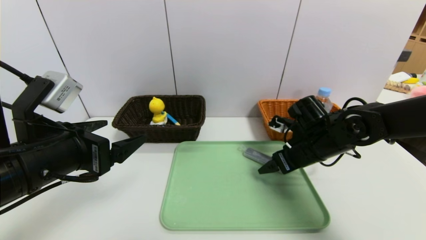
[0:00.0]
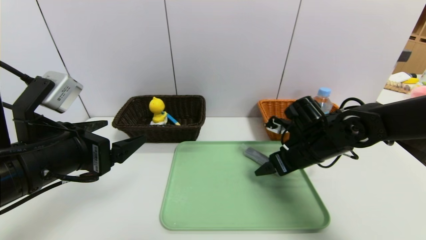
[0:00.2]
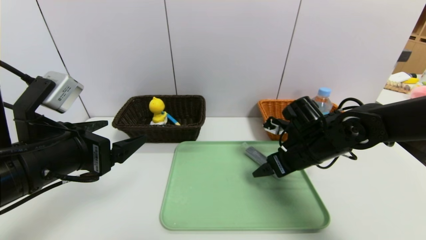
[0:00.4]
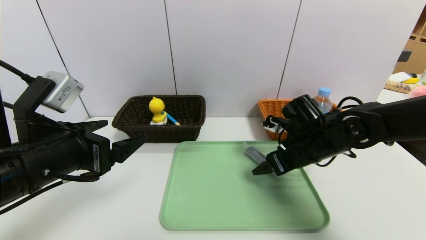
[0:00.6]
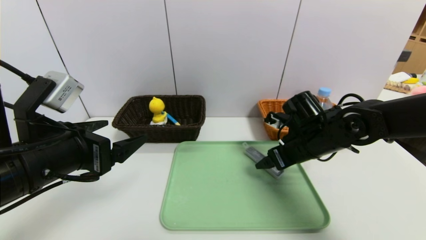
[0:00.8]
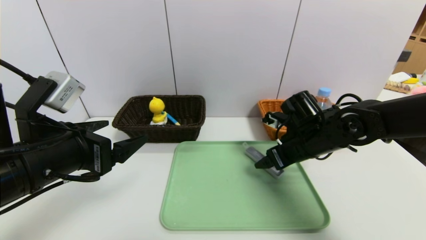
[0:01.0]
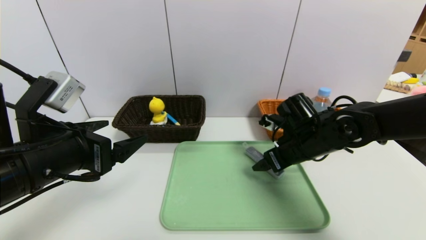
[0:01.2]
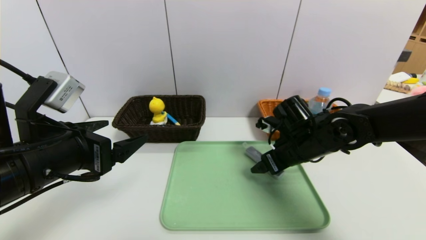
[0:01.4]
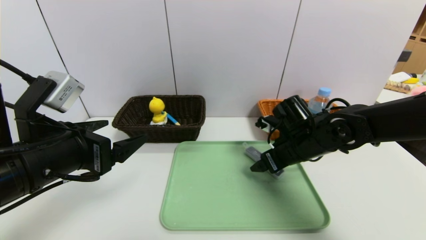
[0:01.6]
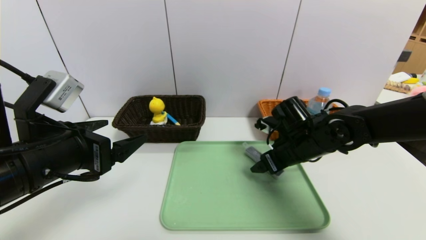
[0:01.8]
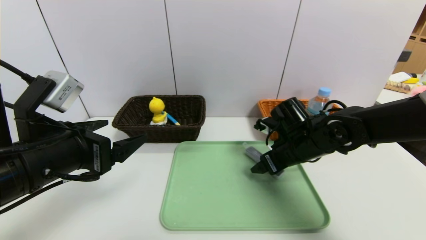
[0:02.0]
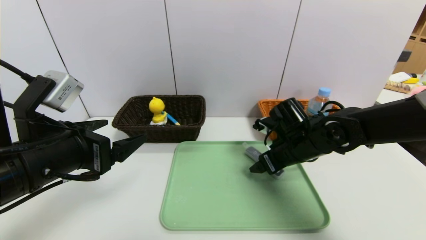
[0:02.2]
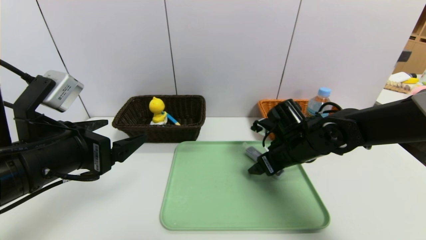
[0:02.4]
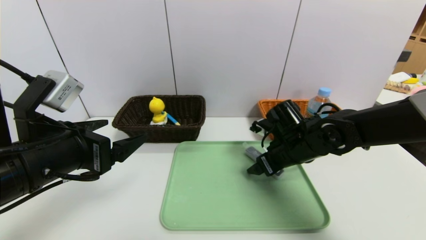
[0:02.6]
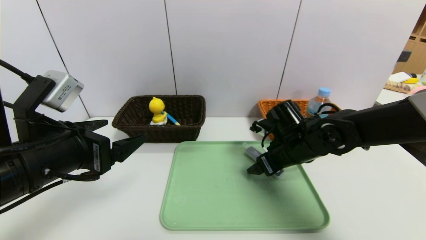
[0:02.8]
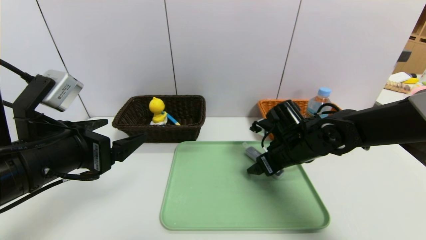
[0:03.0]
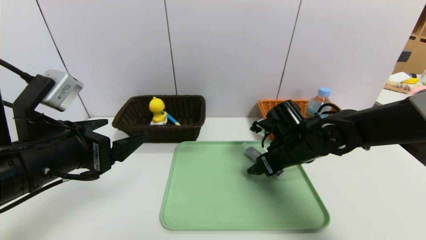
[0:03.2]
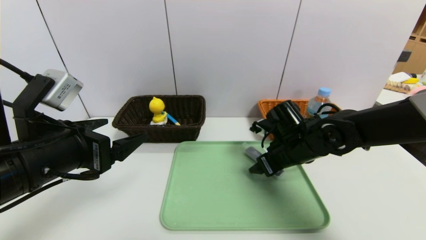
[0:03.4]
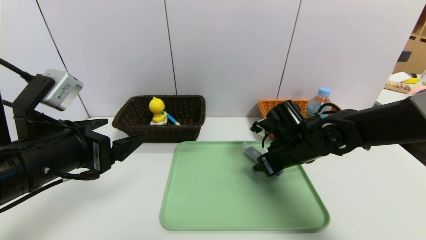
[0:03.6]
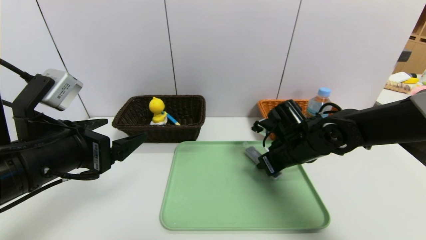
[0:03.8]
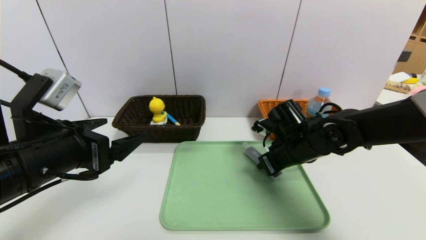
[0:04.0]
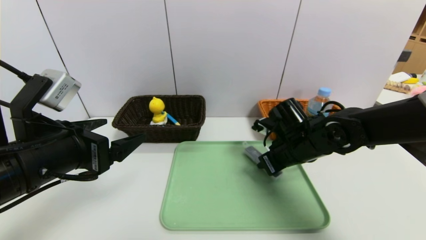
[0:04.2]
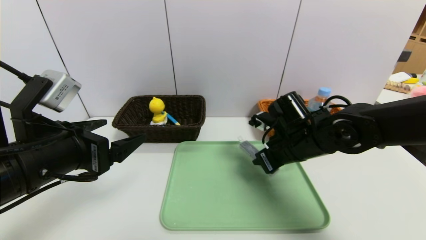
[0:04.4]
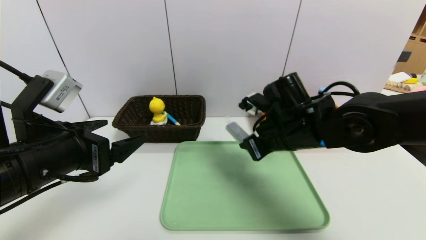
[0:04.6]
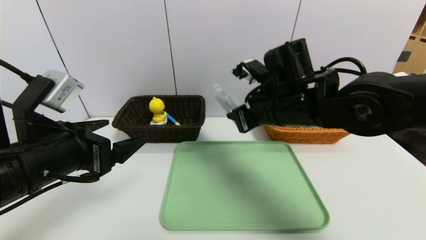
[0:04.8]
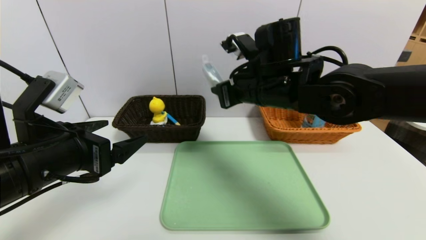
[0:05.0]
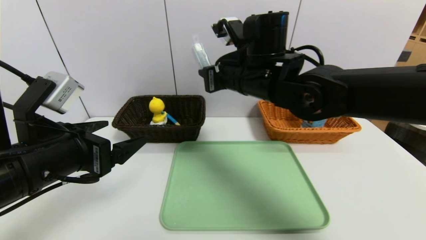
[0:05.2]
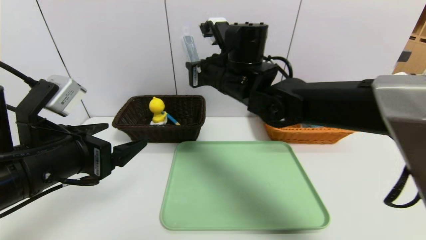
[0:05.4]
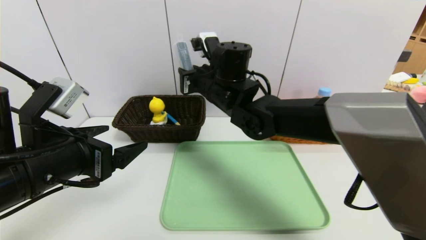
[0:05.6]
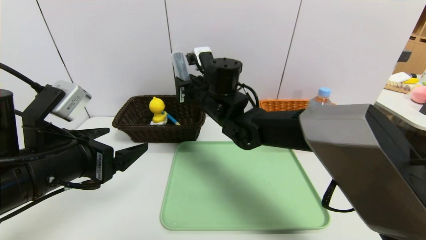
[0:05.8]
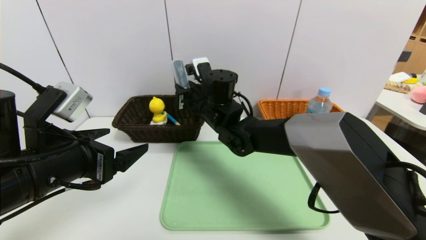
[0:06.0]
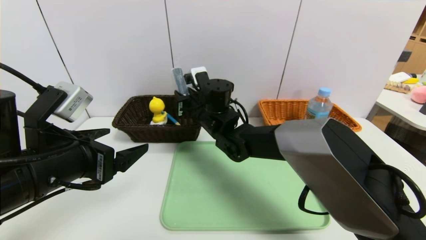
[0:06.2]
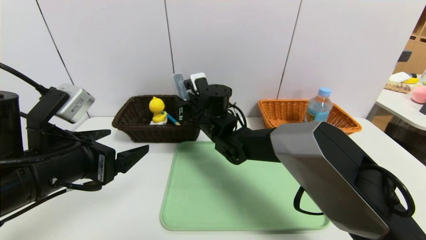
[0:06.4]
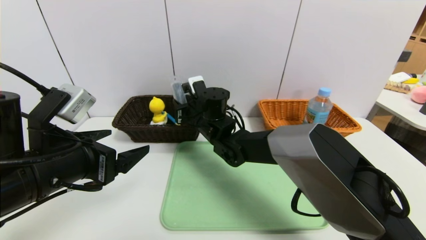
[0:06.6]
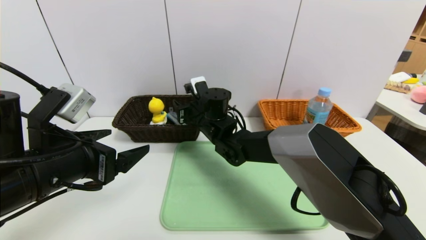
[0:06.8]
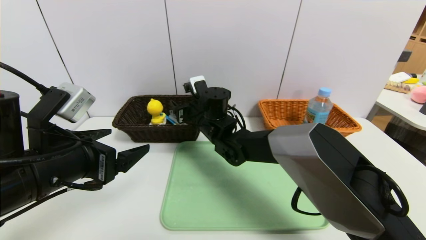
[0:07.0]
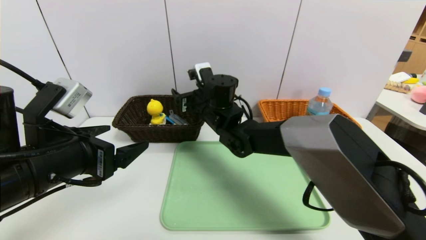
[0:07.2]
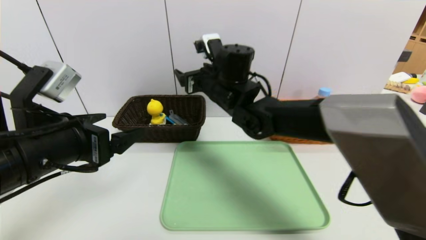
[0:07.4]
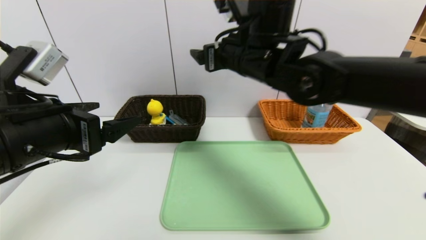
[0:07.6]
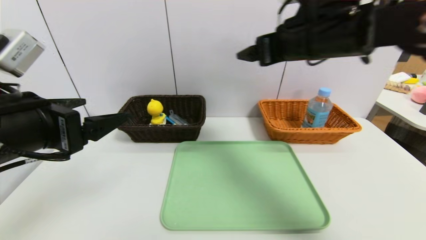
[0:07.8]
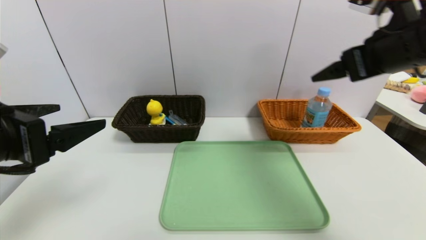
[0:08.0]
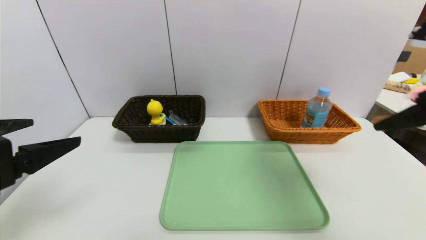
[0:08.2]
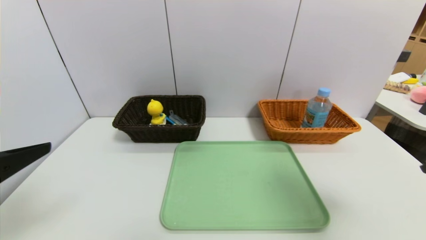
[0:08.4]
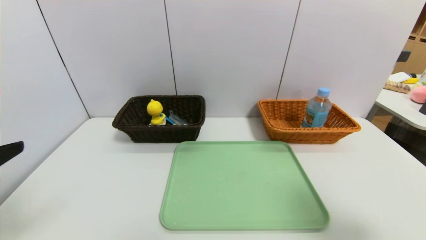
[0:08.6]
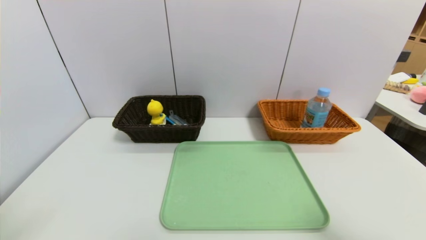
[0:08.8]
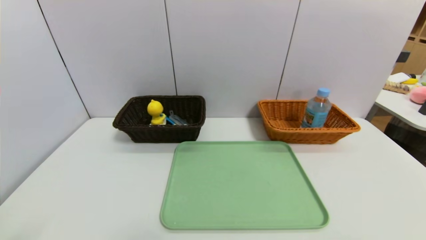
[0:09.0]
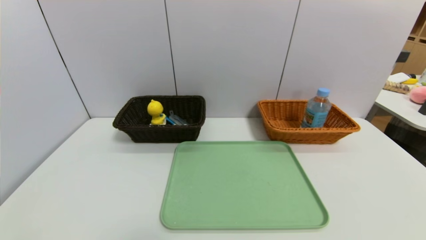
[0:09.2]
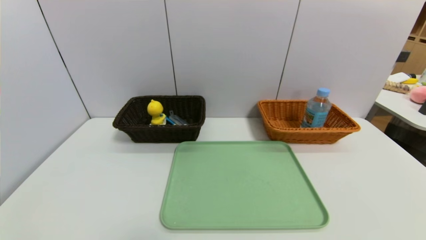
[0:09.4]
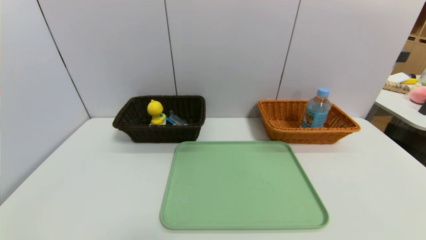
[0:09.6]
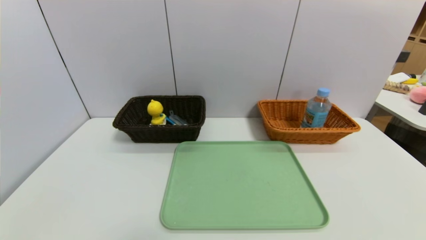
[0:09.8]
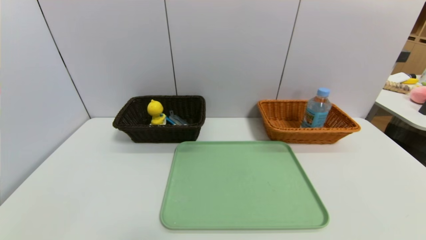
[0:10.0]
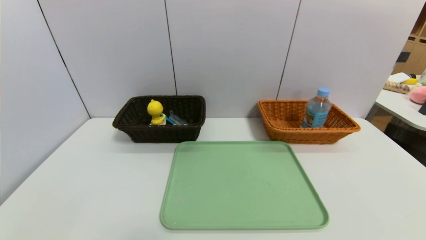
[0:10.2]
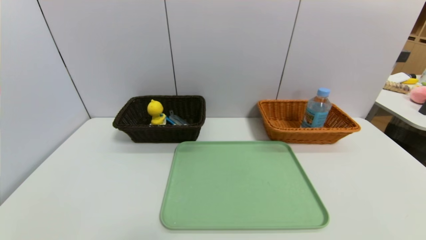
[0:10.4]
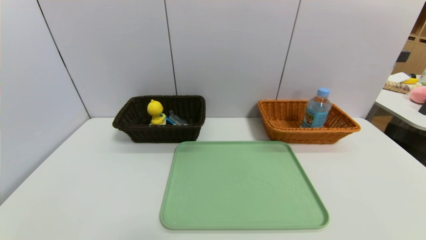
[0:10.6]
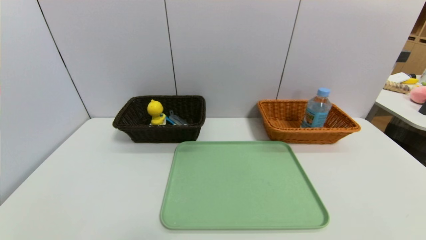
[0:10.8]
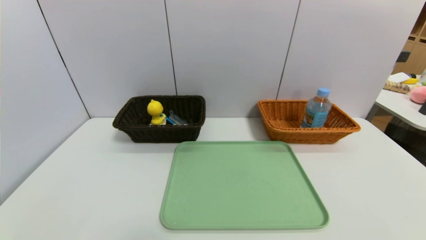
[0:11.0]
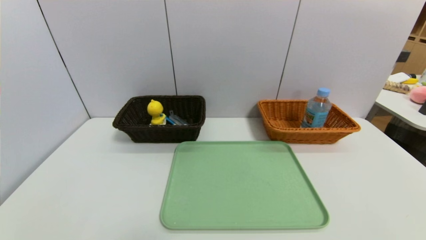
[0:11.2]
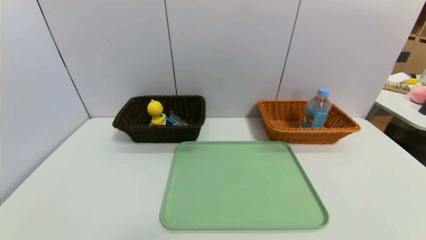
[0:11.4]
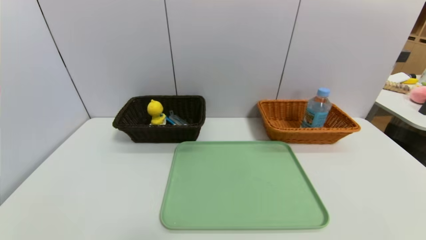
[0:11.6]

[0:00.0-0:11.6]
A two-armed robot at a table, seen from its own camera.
Task of the whole recording: place the food in the right basket with the right gripper, and place the non food items in the left basket with the left gripper.
0:00.0 to 0:02.8: There are only small adjustments of the grippers.
0:02.8 to 0:04.4: The right gripper closes.
0:04.4 to 0:05.8: The right gripper goes roughly 20 cm to the left and forward.
0:05.8 to 0:07.2: The right gripper opens up.
0:07.2 to 0:08.8: The right gripper moves backward and to the right, some 50 cm. The left gripper shifts some 15 cm backward and to the left.
0:08.8 to 0:10.2: Both grippers travel together downward, roughly 20 cm.

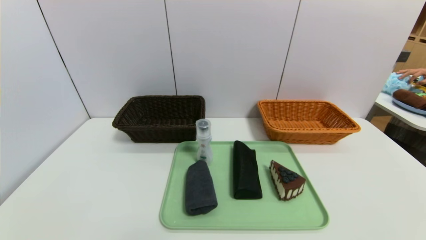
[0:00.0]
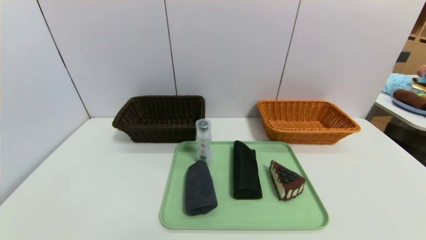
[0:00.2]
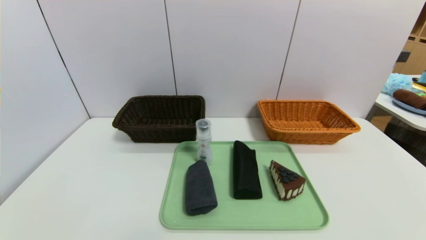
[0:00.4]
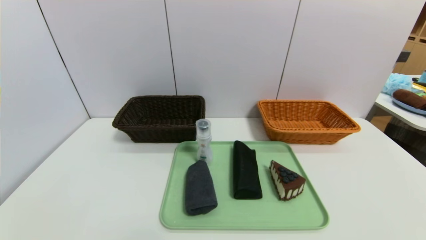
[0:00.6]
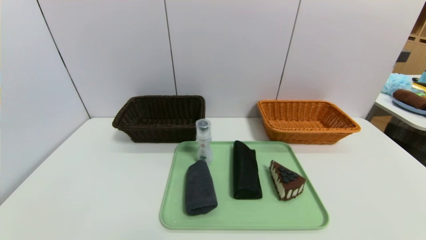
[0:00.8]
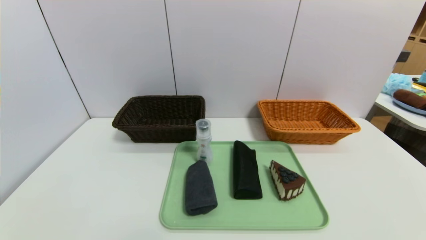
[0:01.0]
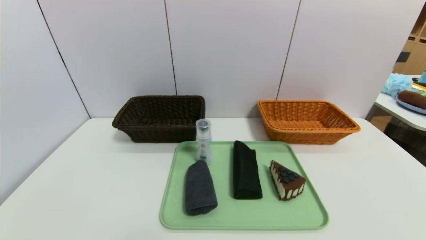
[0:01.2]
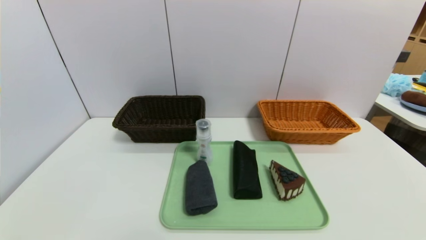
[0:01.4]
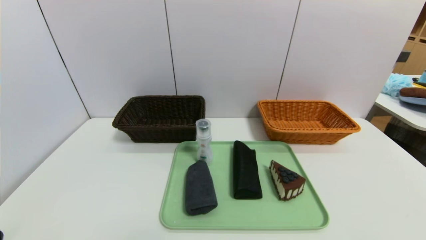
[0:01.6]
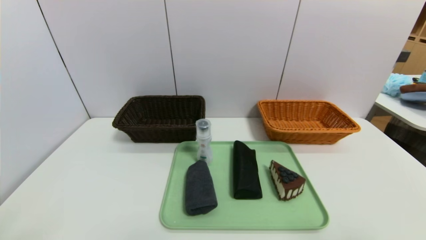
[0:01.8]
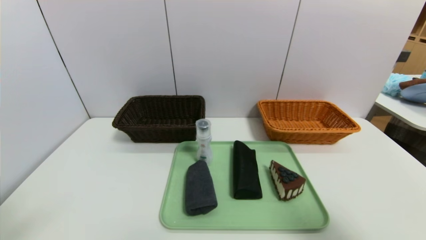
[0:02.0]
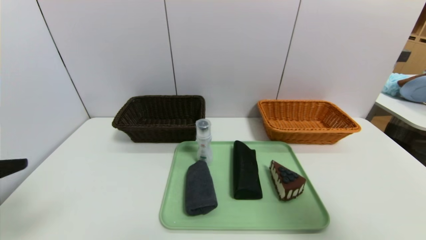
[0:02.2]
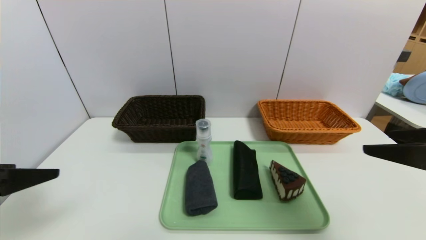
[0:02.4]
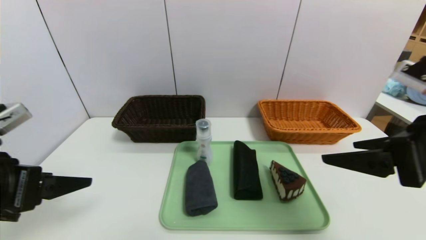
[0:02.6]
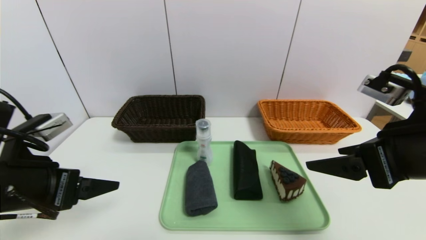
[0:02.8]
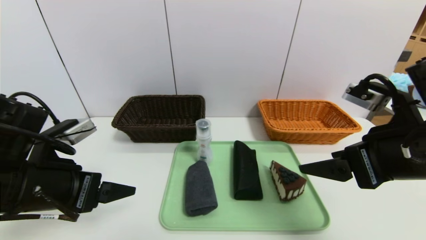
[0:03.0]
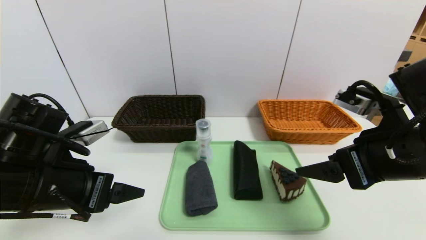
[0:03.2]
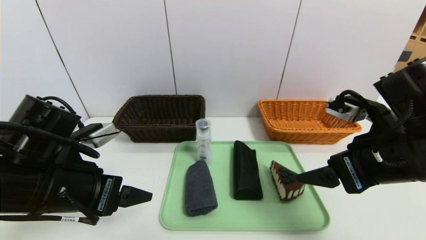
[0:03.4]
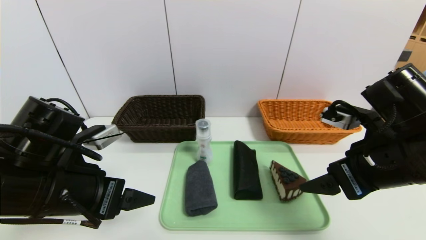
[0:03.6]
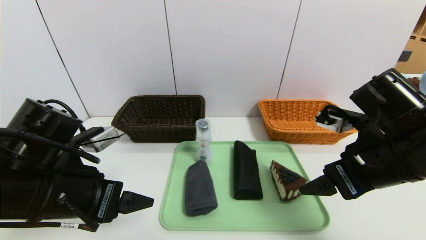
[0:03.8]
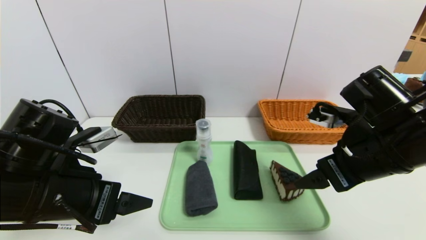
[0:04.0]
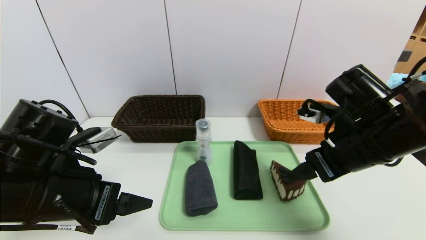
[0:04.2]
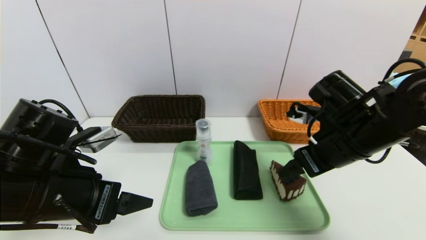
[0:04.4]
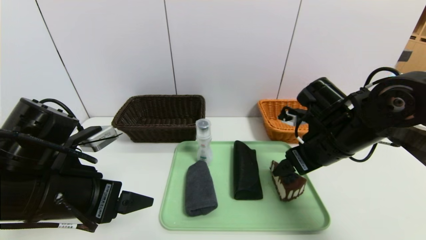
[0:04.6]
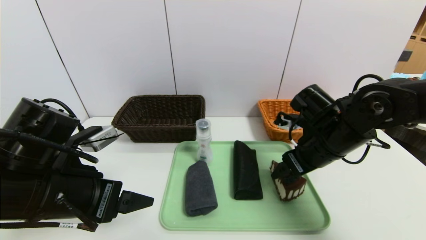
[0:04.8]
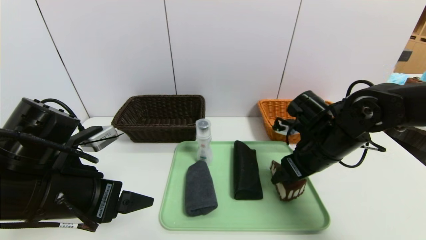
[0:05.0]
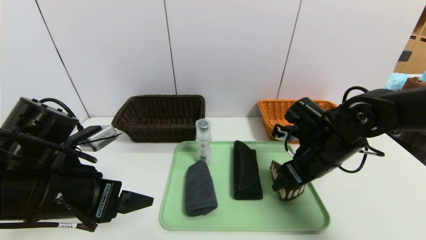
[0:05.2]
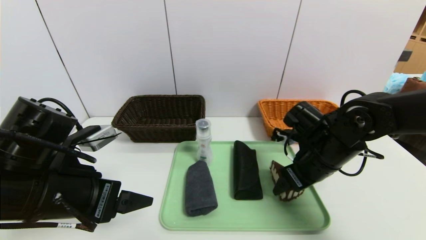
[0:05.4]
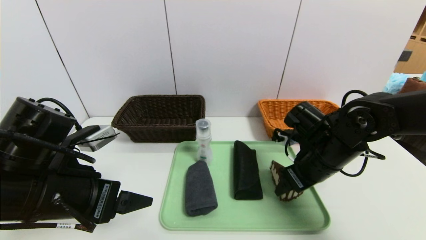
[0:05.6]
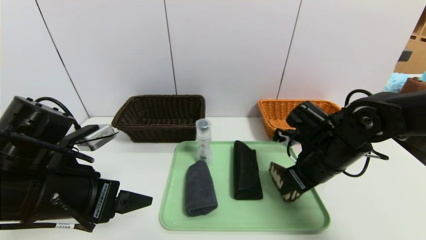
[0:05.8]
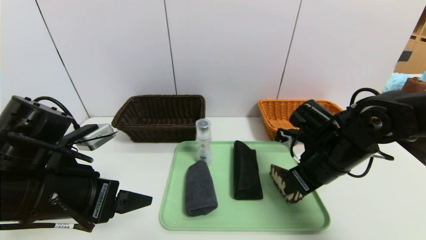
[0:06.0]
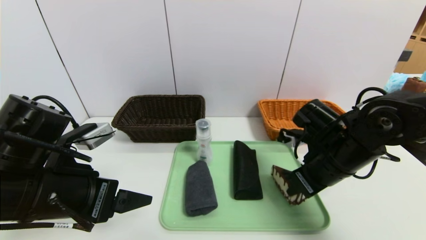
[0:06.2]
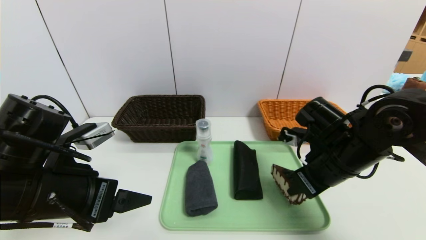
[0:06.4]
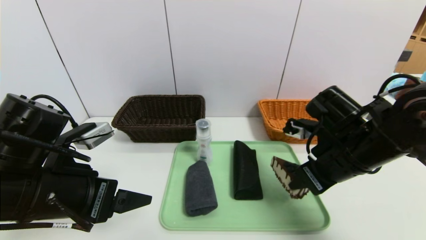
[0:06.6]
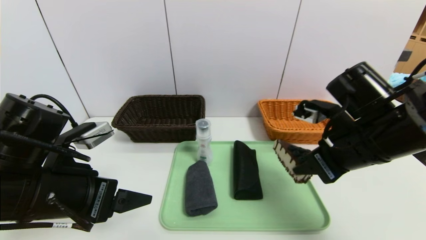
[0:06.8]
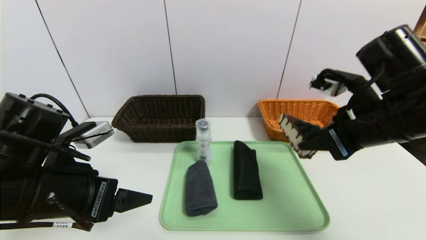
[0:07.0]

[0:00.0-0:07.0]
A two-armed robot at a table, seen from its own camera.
Task of the whole recording: place the food in the right basket with the right gripper, and place the non food items in the left basket with the left gripper.
0:00.0 to 0:01.4: The right gripper heads upward, covering about 5 cm.
0:01.4 to 0:02.8: The left gripper moves forward and upward, roughly 20 cm. The right gripper is displaced forward, upward and to the left by some 25 cm.
0:02.8 to 0:04.2: The right gripper heads forward, covering approximately 5 cm. Meanwhile the left gripper shifts by about 5 cm.
0:04.2 to 0:05.6: The right gripper moves downward, roughly 5 cm.
0:05.6 to 0:07.0: The right gripper shifts roughly 15 cm upward and backward, and closes up.
